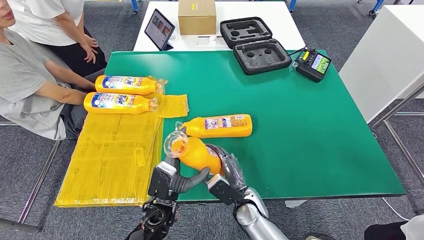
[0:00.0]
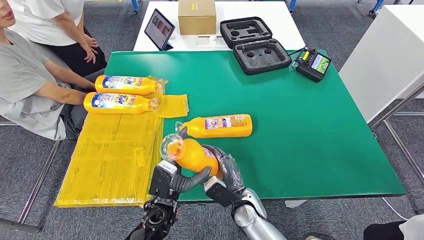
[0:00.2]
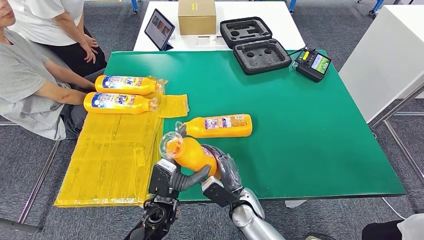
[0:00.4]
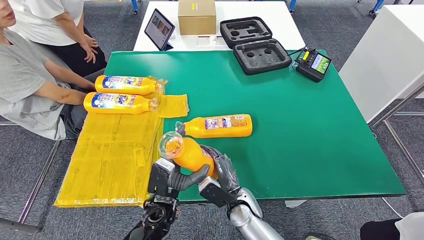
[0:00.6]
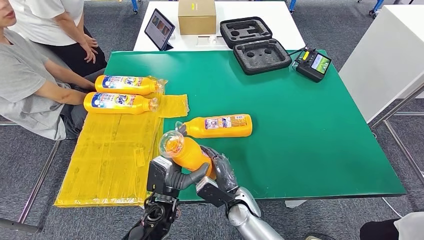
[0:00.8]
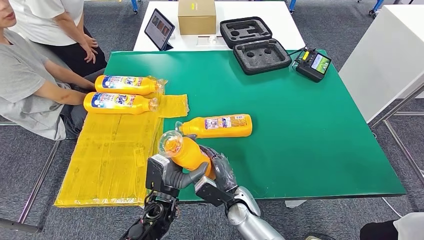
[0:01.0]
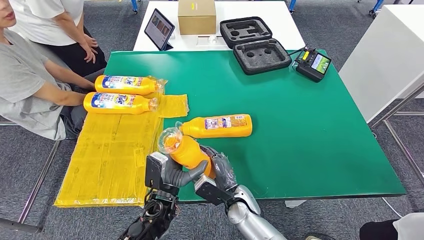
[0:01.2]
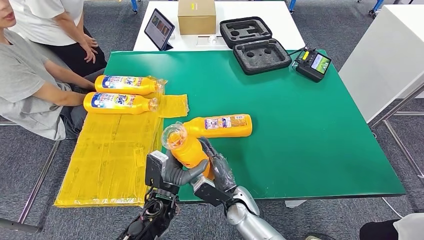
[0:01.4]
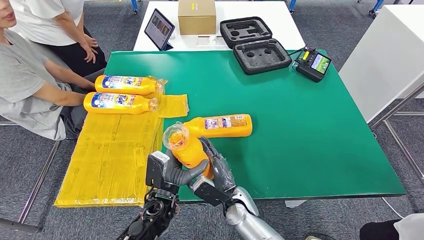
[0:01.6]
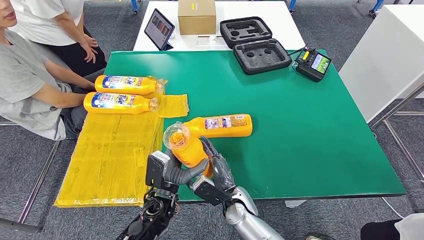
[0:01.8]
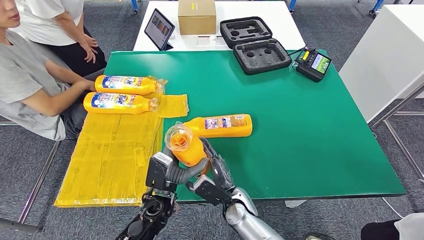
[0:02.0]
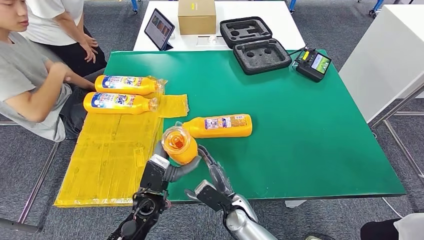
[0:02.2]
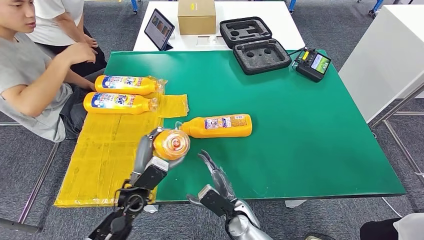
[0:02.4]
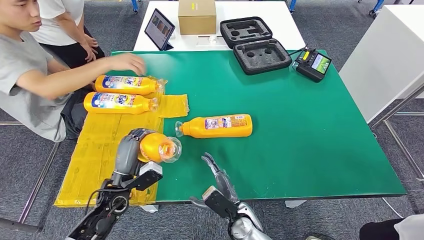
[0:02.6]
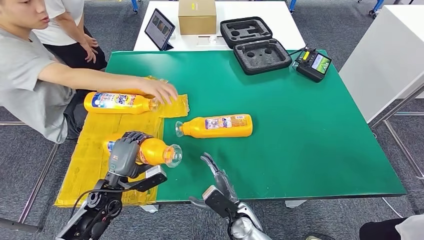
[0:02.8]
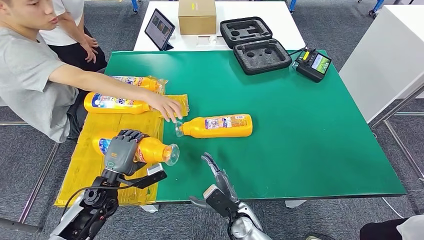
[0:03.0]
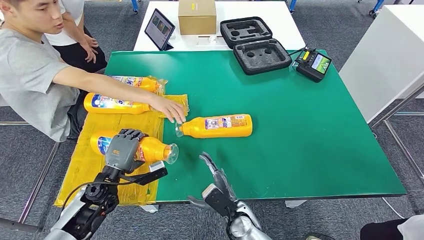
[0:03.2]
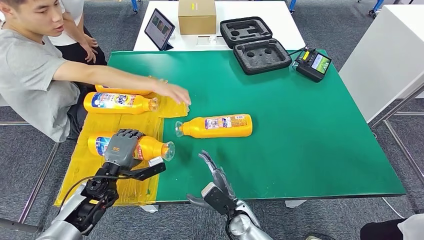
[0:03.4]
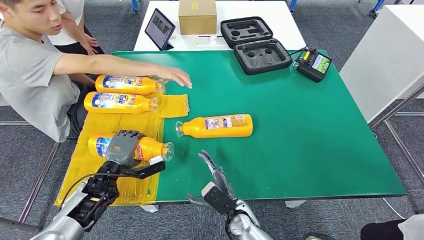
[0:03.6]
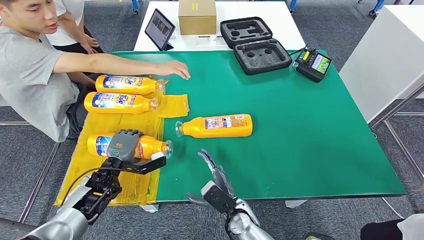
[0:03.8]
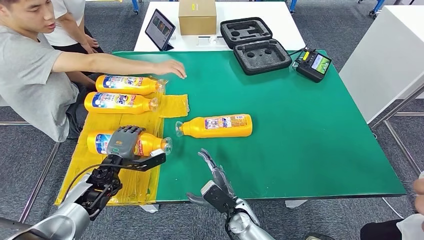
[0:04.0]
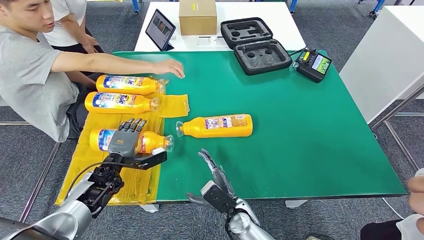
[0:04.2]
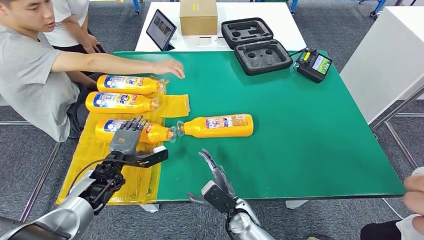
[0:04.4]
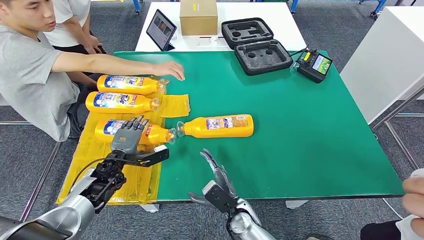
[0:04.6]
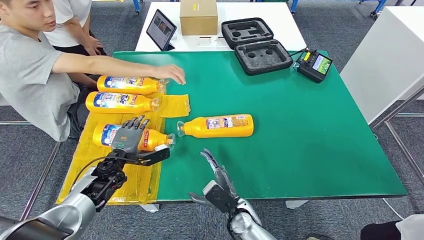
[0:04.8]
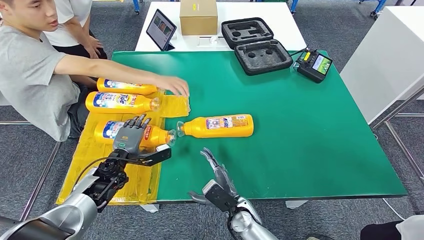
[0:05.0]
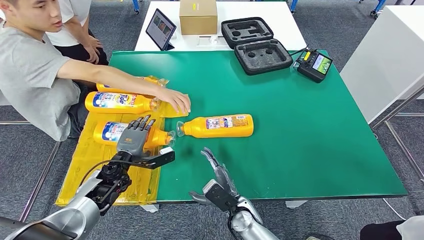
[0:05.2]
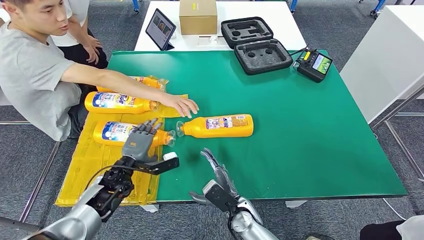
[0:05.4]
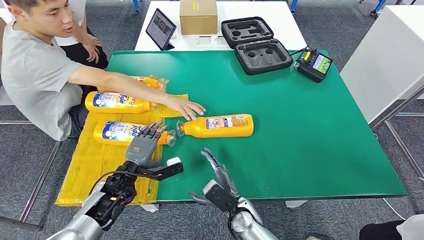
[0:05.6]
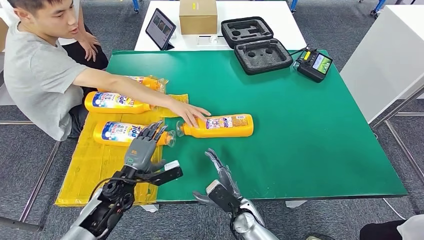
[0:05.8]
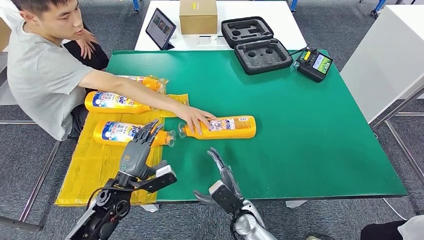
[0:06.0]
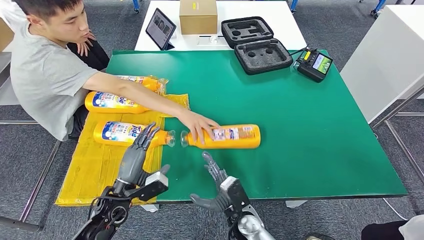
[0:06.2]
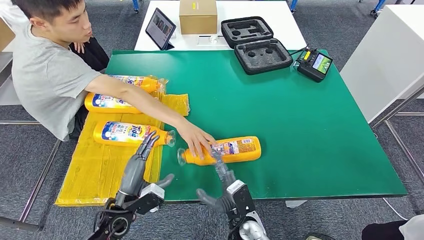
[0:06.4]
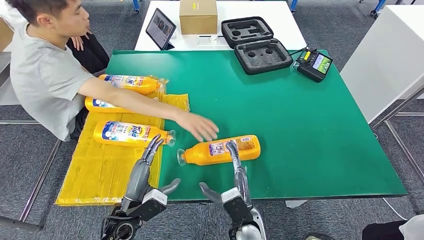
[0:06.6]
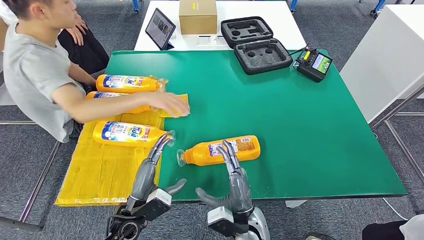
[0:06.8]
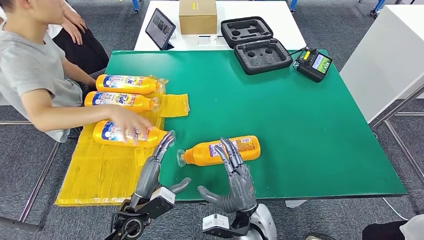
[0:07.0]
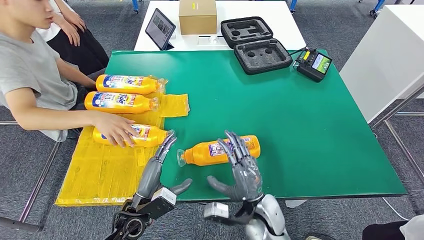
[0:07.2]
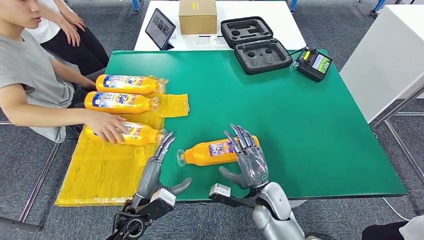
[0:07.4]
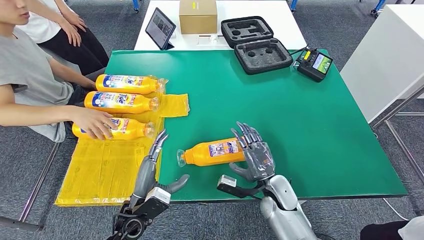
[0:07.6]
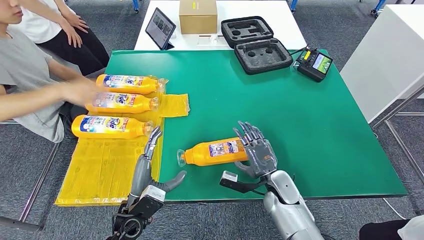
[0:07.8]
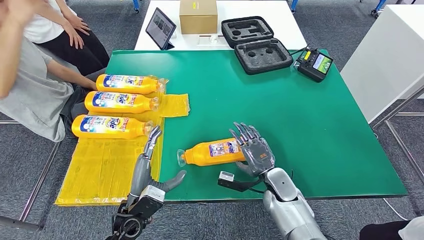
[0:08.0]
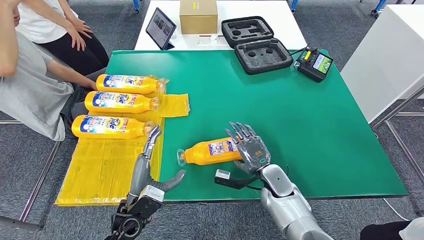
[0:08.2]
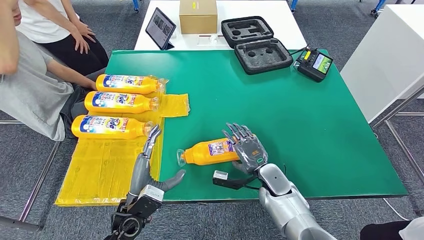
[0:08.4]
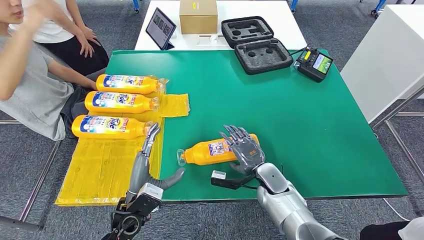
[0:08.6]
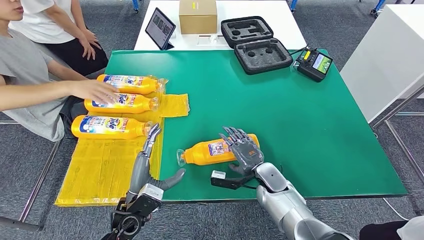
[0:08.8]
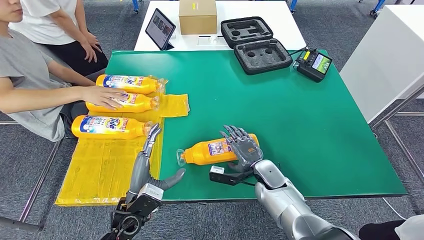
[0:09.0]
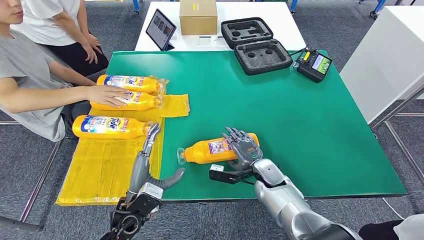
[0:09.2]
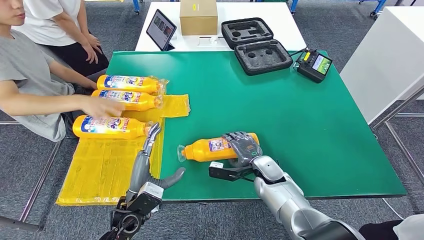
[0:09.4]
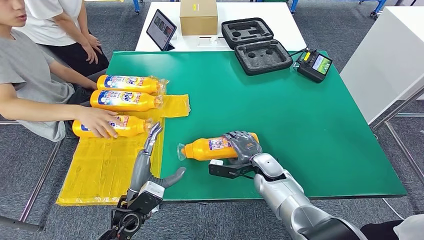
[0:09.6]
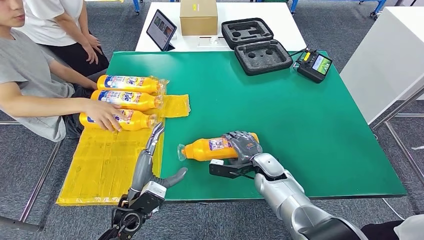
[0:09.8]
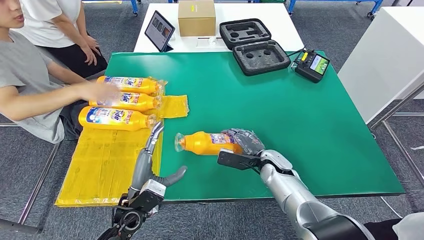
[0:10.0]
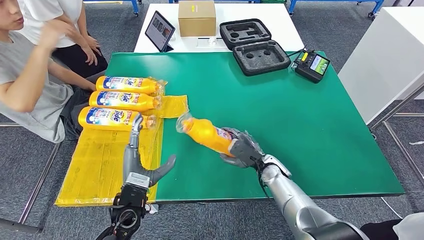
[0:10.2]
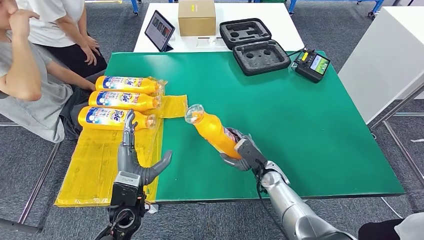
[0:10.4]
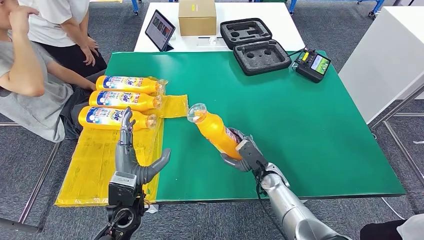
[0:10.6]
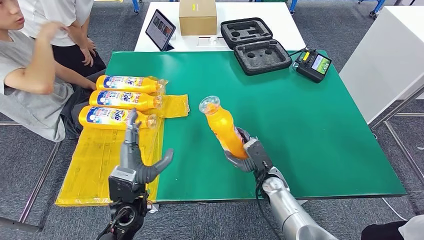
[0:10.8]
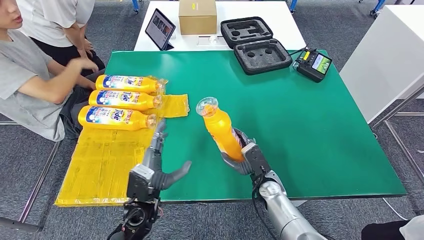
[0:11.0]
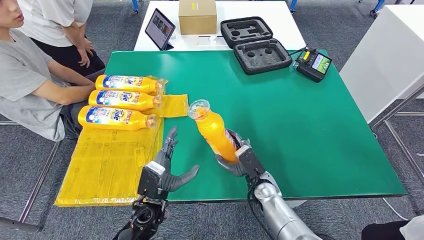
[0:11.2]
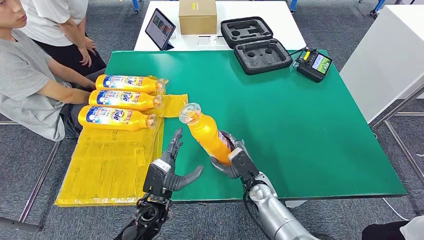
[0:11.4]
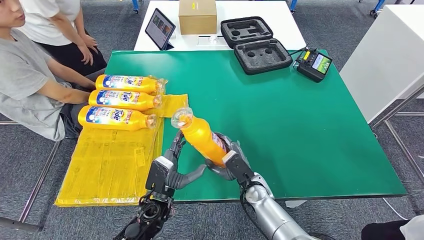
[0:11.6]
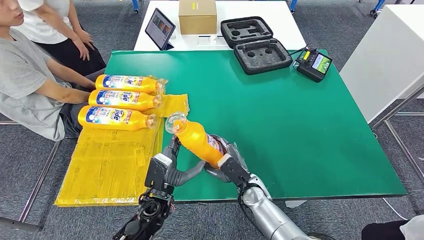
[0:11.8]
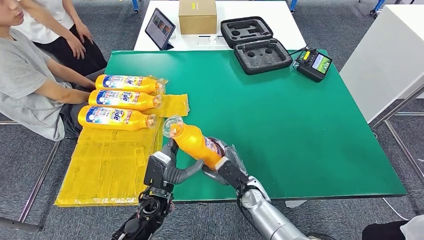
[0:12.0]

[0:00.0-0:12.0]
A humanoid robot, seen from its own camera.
Step, 0:00.0 to 0:06.6: Flip the bottle to face forward.
0:00.0 to 0:01.6: The hands move only a little.
0:07.6 to 0:09.0: The right hand shifts roughly 5 cm forward.

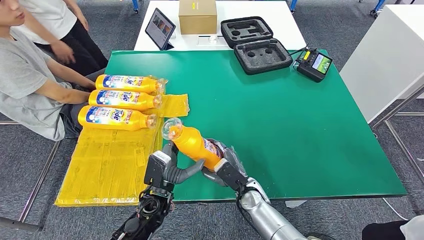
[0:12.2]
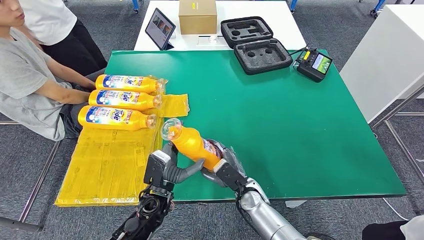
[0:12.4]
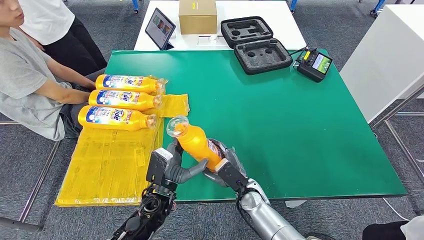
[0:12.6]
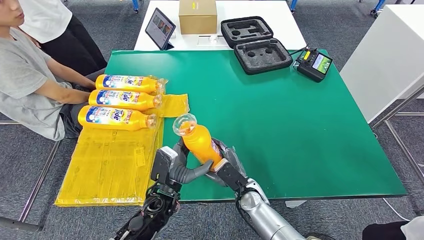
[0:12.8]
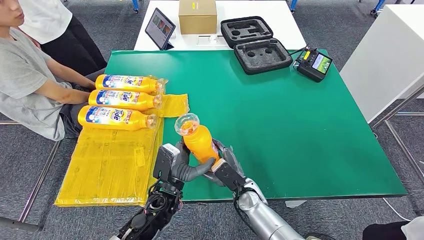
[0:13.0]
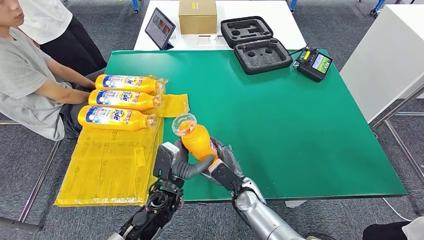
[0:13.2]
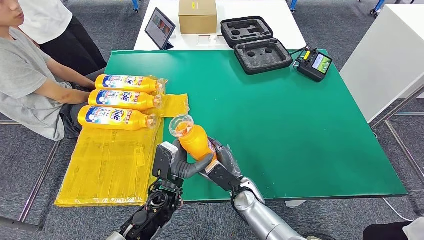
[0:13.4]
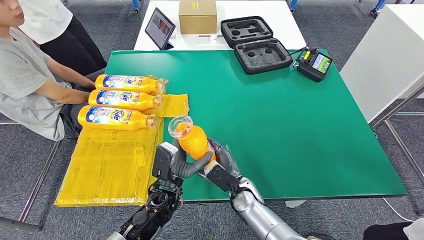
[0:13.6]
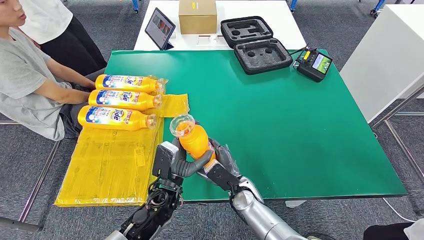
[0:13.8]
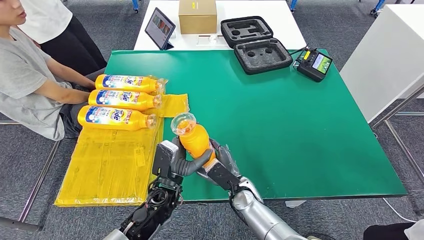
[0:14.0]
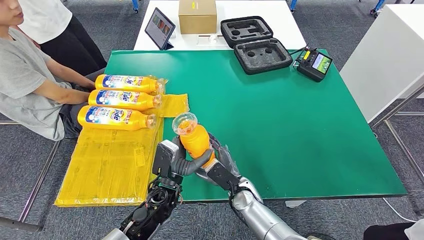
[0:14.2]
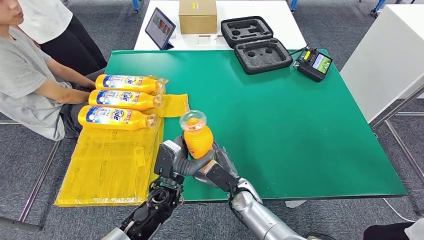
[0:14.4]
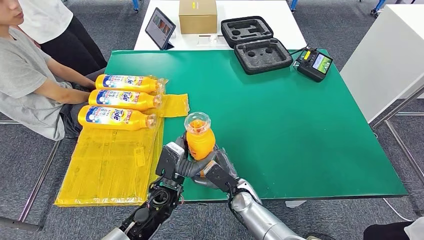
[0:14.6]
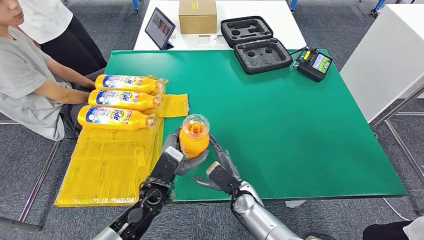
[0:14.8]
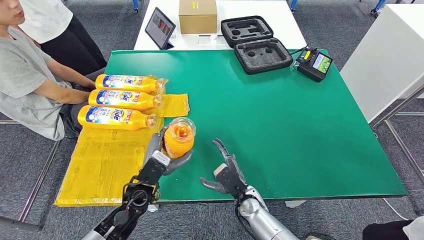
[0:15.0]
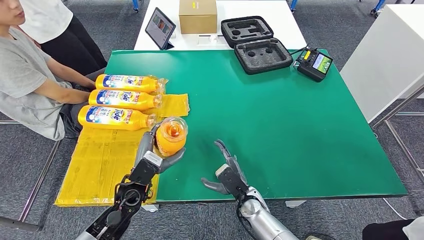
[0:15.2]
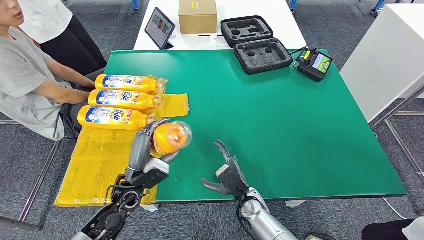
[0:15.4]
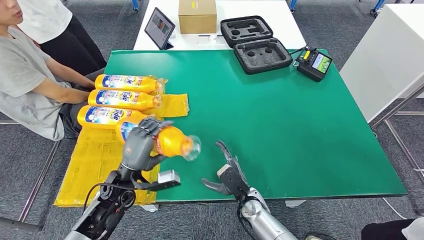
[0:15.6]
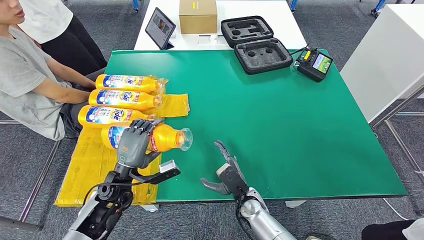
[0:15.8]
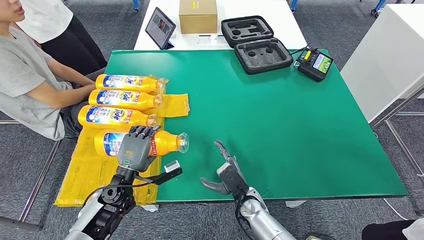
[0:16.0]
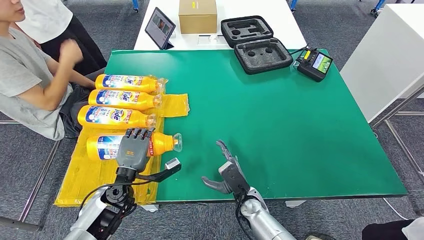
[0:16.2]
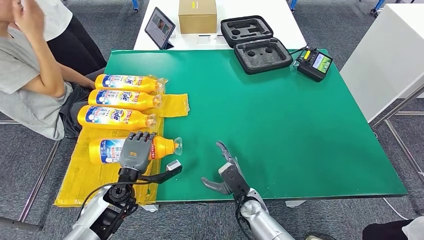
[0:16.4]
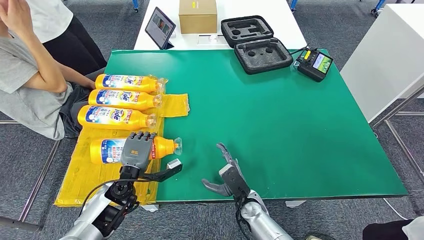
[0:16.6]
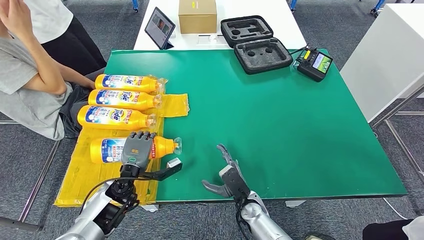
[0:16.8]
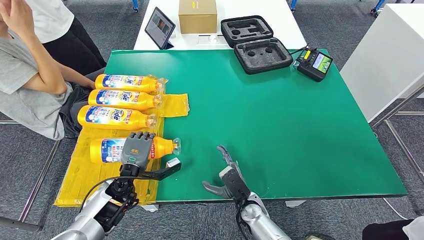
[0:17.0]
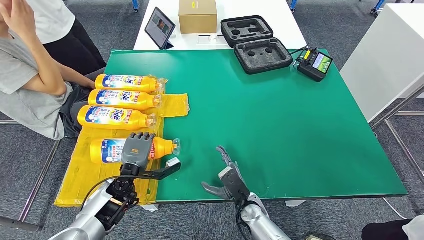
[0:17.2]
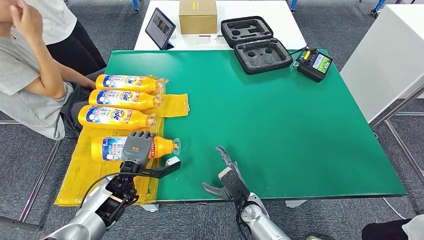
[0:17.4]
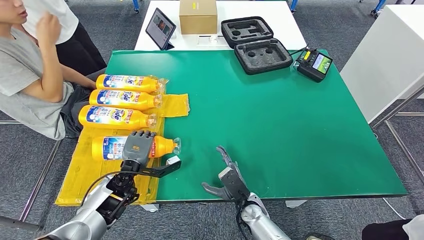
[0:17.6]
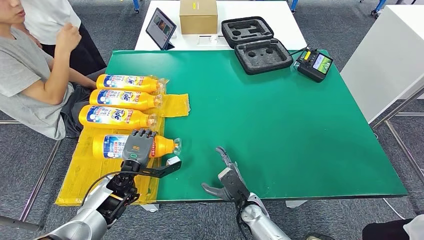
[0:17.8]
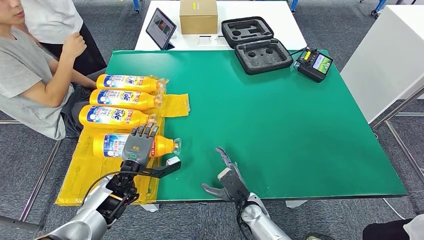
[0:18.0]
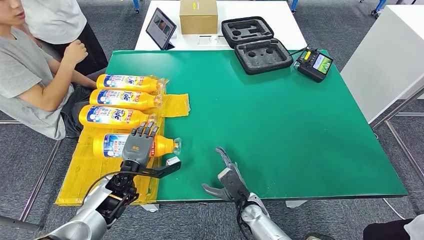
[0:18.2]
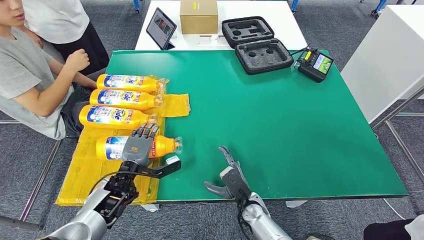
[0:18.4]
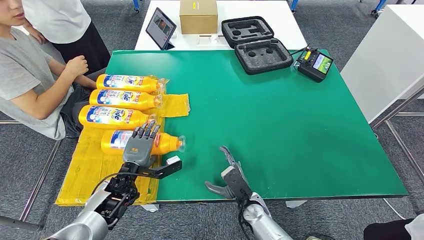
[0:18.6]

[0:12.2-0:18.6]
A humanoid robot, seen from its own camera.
Step, 0:12.2 to 0:14.2: Pick up the bottle from the table.
0:12.2 to 0:13.8: The hands make only small movements.
0:13.8 to 0:15.4: The left hand travels to the left by about 10 cm.
0:15.4 to 0:17.0: The left hand ends up about 5 cm from where it was.
0:17.0 to 0:18.6: The hands move only a little.
